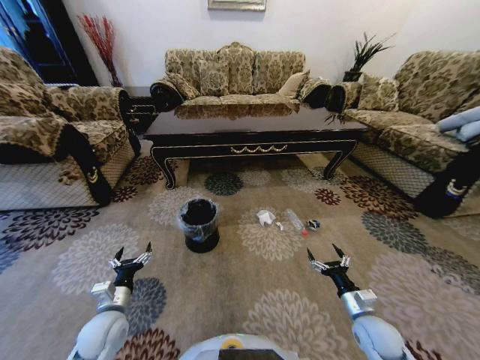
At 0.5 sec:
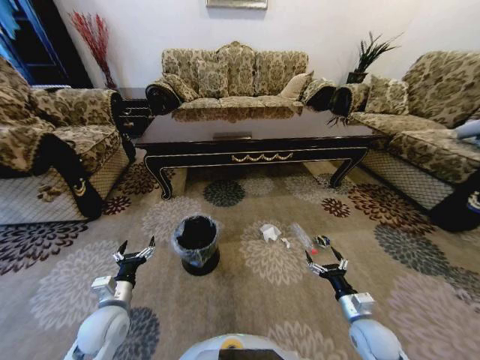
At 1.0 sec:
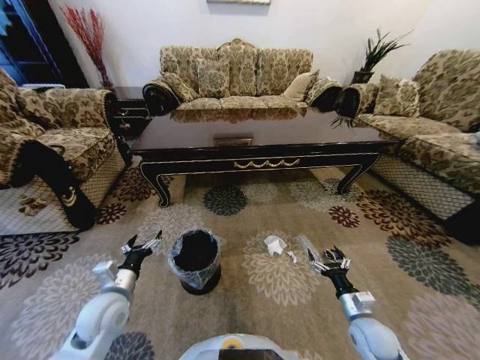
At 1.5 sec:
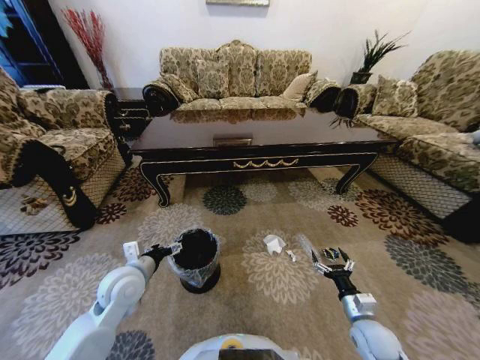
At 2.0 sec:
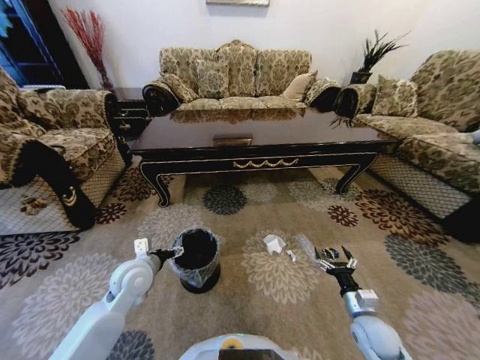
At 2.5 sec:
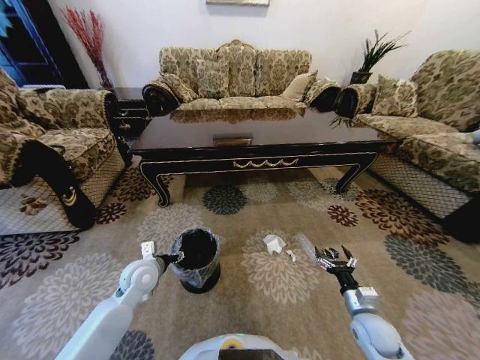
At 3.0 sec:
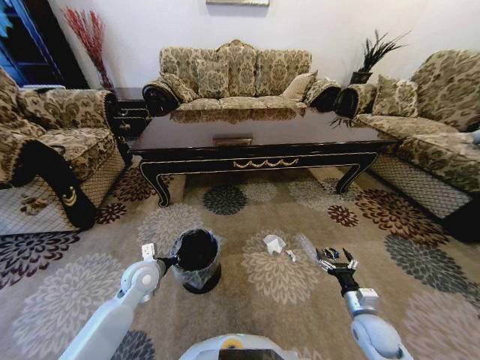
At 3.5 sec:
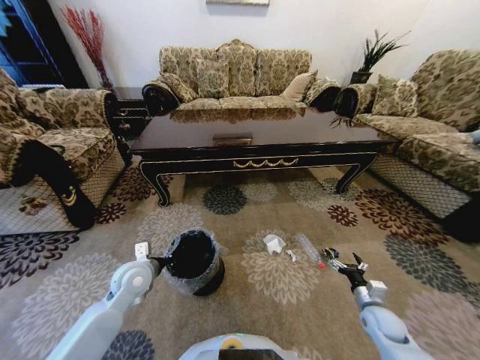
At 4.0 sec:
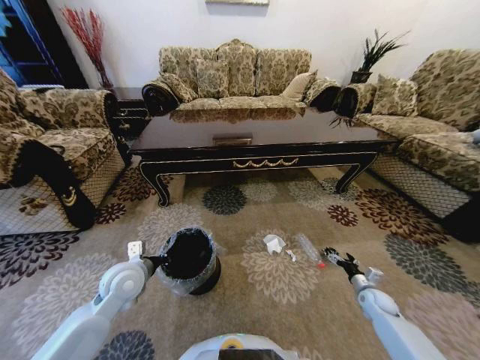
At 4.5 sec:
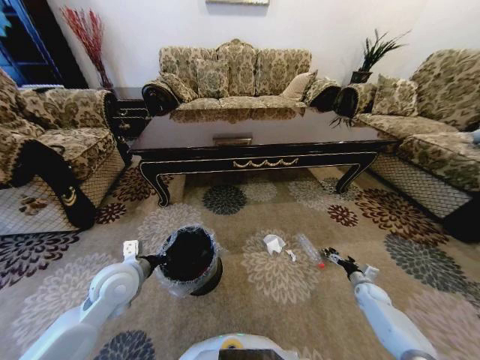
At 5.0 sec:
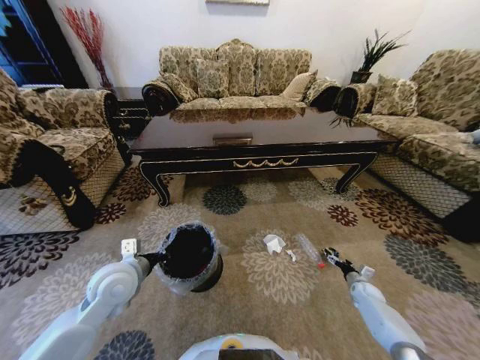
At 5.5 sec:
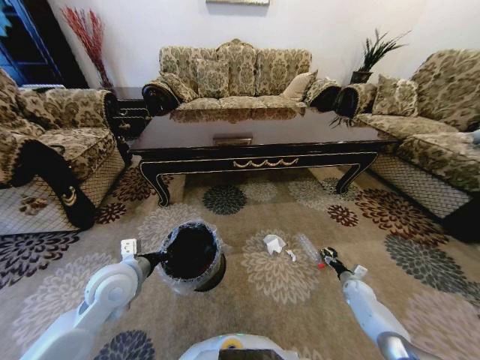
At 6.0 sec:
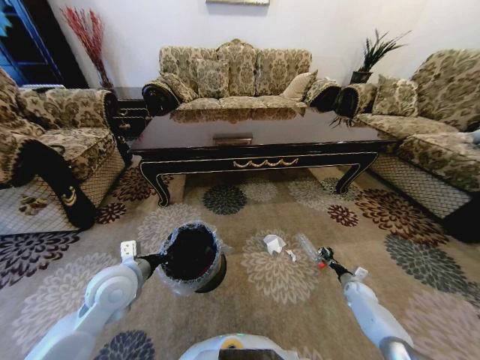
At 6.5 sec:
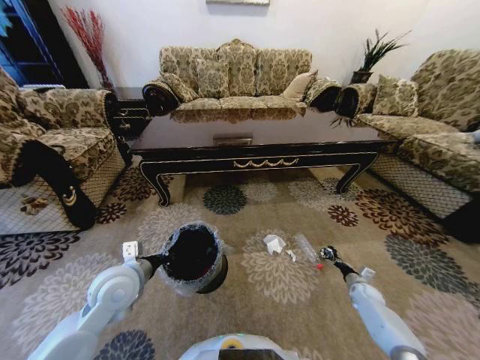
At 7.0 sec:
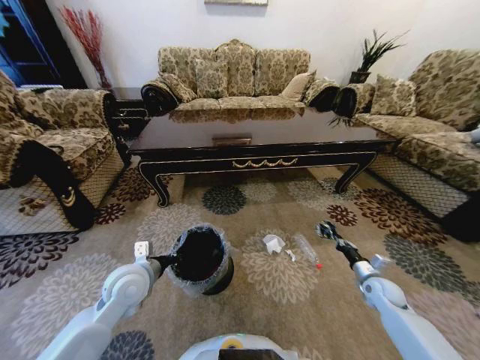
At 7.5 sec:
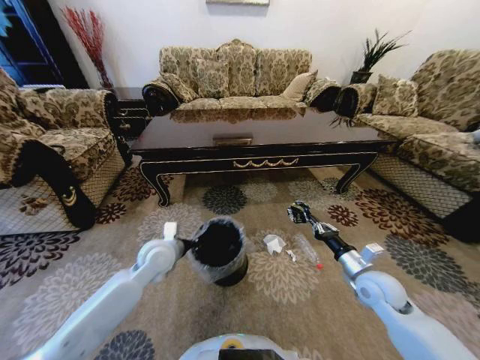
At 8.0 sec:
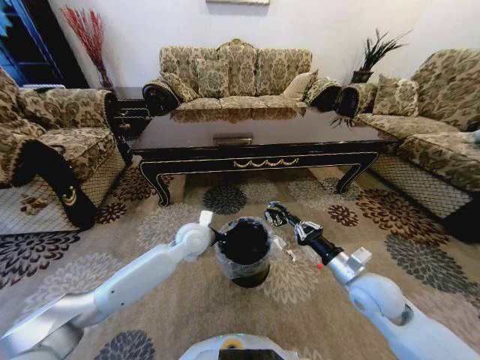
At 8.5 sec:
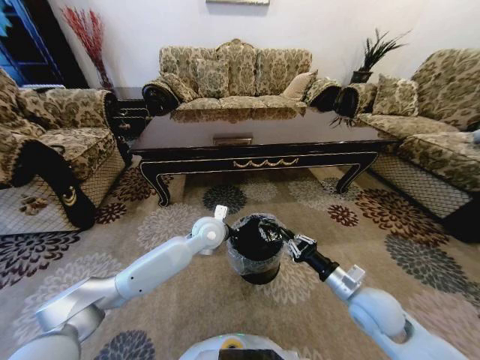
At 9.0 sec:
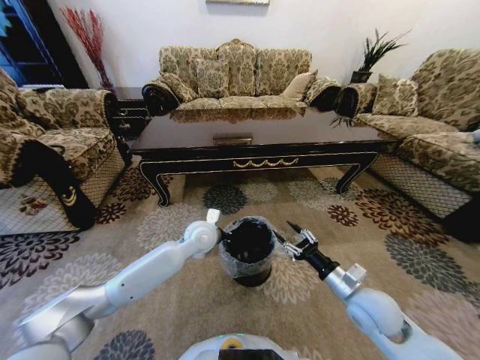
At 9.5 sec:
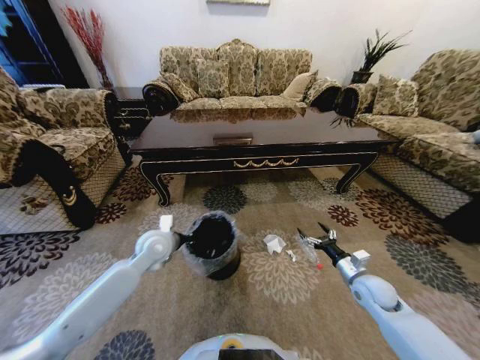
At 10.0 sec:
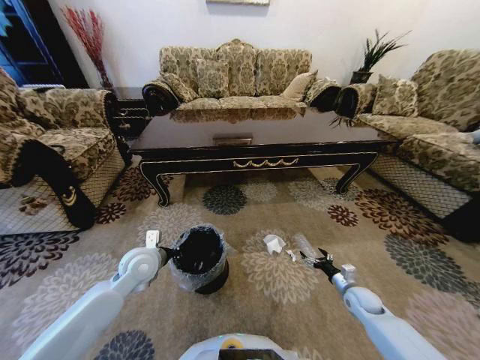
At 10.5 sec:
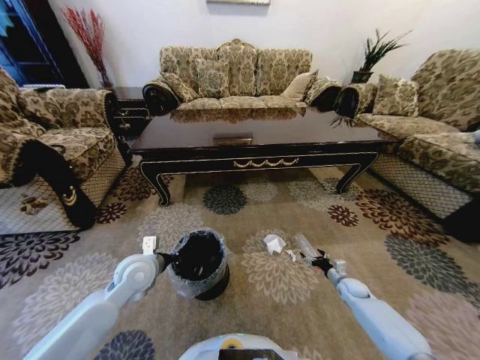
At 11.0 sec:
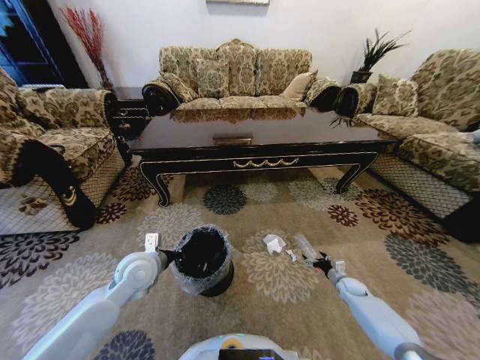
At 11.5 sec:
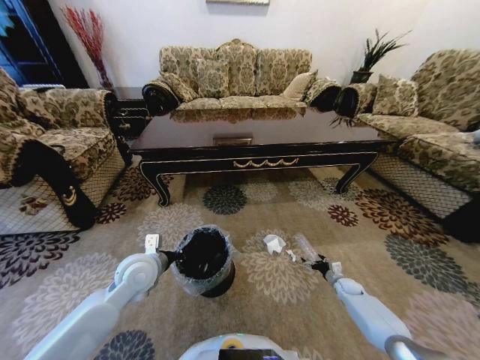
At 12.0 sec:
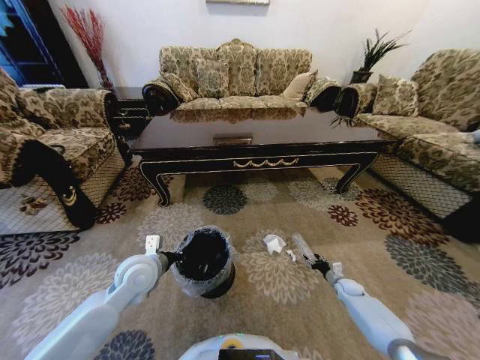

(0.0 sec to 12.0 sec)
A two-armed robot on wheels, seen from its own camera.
Task of the whole recording: Move to the front of the table and pick up the trash from the floor, then place it into the trash bin.
0.0 sec - 2.0 sec: The left gripper heads forward, upward and to the right, covering roughly 15 cm.
2.0 sec - 4.0 sec: The right gripper travels to the right, forward and downward by roughly 20 cm. Meanwhile the left gripper closes its fingers.
4.0 sec - 6.0 sec: The right gripper shifts approximately 5 cm downward, and closes its fingers.
6.0 sec - 8.0 sec: The left gripper is displaced to the right and forward by roughly 20 cm, while the right gripper shifts approximately 35 cm upward and to the left.
8.0 sec - 10.0 sec: The left gripper travels to the left and backward by roughly 15 cm. Meanwhile the right gripper travels downward and to the right by about 25 cm, and opens its fingers.
10.0 sec - 12.0 sec: The right gripper shifts roughly 10 cm downward and forward, and closes.

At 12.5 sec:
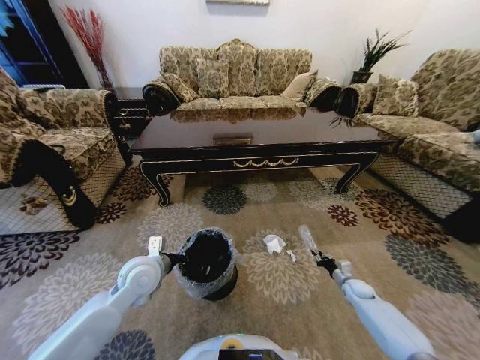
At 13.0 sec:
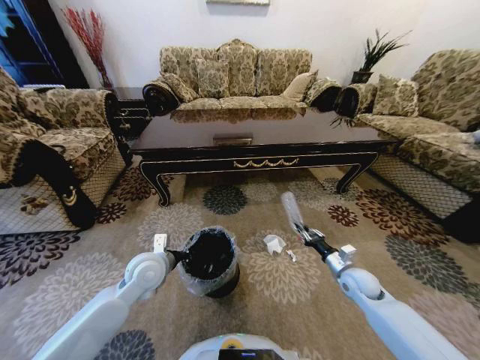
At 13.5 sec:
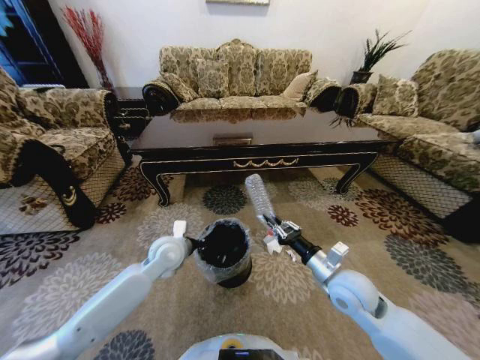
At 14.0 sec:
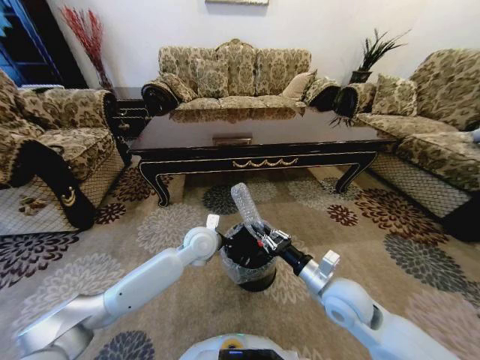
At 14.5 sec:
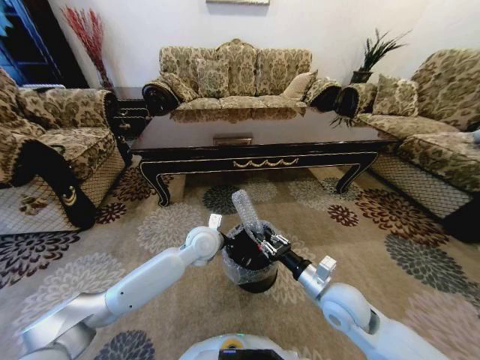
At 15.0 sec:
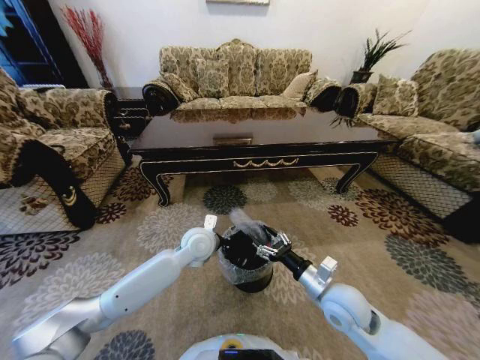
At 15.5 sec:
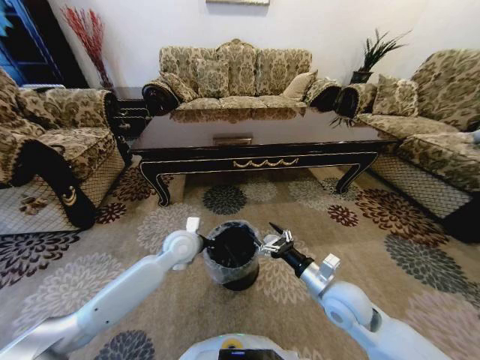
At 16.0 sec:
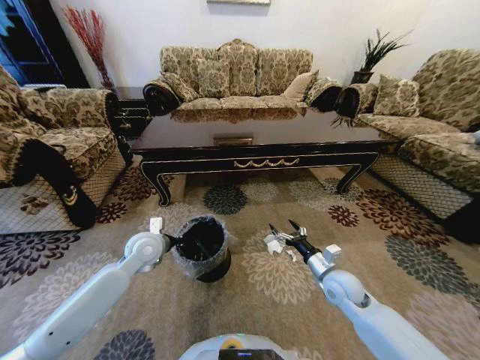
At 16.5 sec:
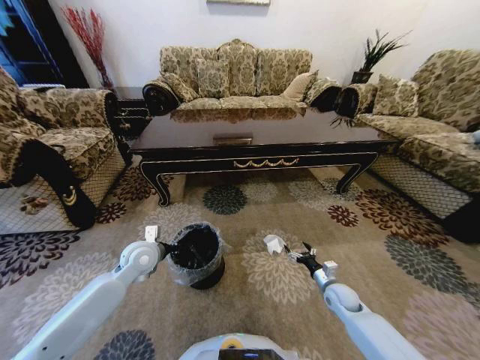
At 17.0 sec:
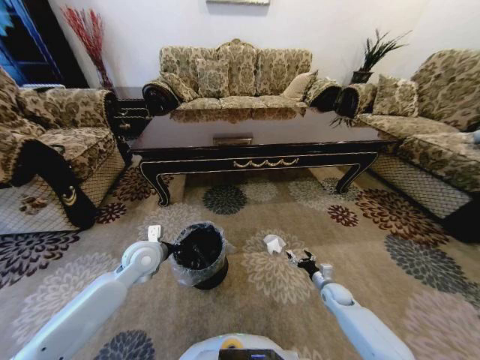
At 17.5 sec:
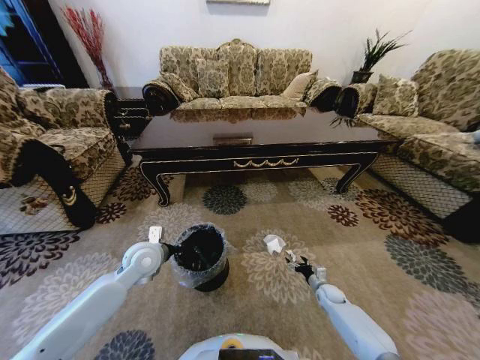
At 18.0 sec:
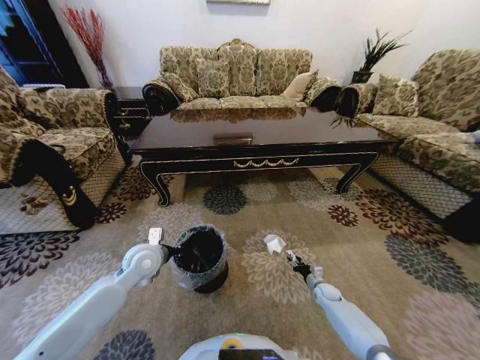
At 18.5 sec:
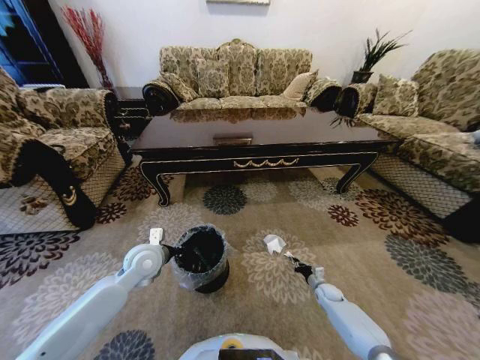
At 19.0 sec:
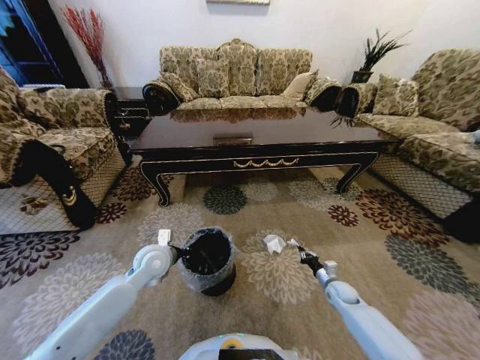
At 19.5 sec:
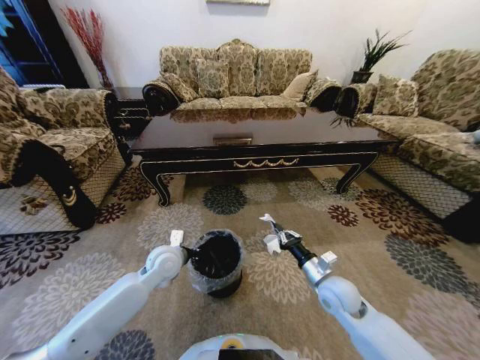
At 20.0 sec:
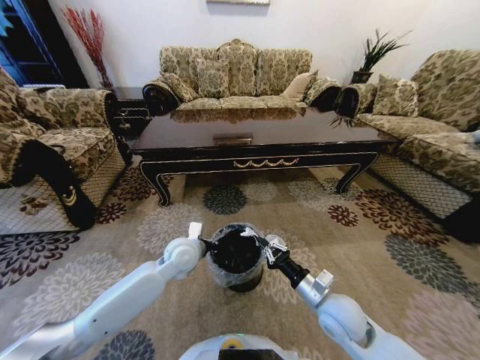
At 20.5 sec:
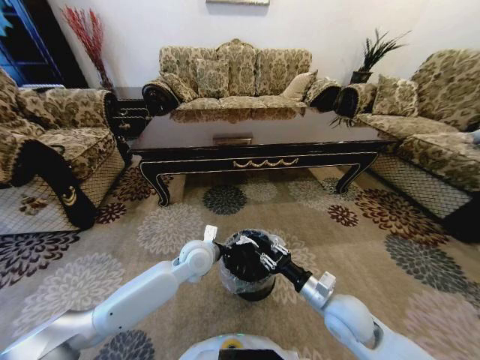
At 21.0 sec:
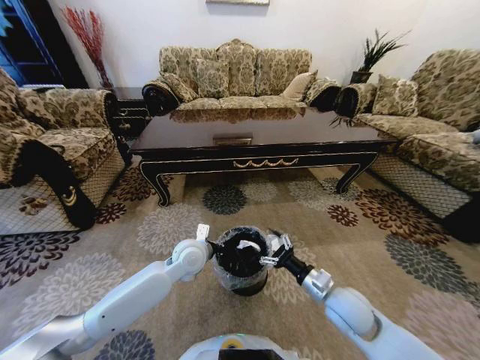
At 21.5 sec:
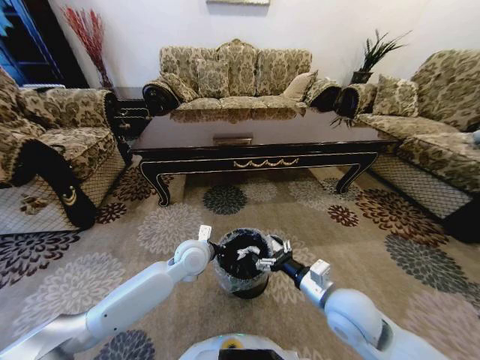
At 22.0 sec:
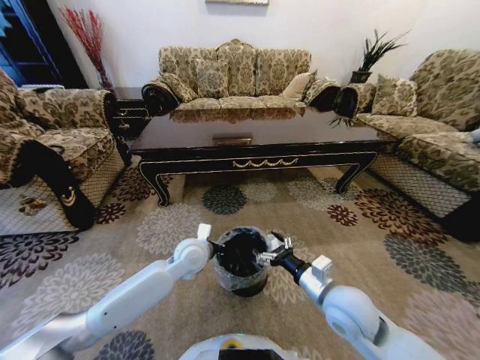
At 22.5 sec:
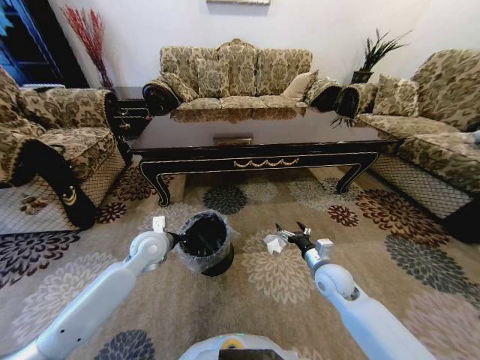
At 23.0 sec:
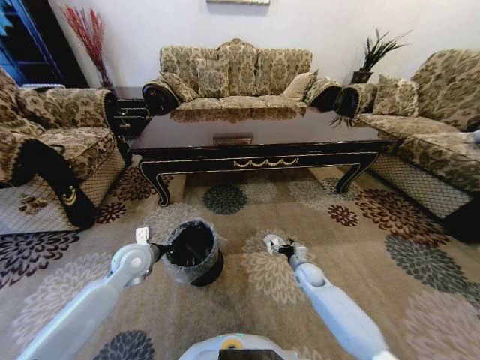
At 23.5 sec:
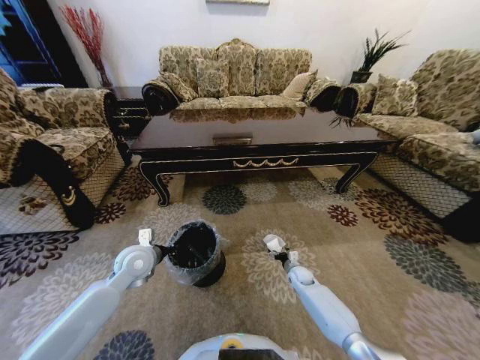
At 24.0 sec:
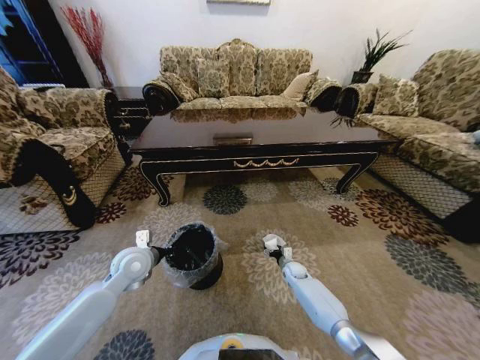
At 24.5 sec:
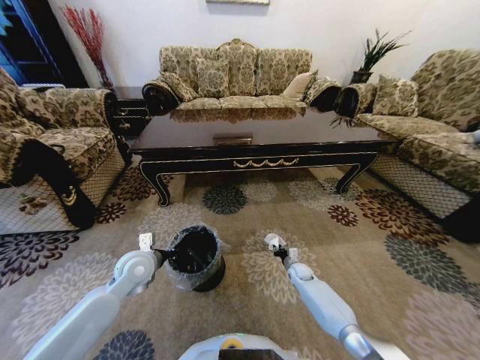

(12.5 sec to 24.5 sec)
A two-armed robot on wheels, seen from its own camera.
Task of the whole recording: Move to the front of the table and pick up the trash from the floor, then place it into the trash bin.
12.5 sec - 14.5 sec: The left gripper heads to the right and forward, covering some 15 cm; the right gripper shifts approximately 35 cm upward, to the left and backward.
14.5 sec - 16.5 sec: The left gripper heads to the left, covering some 20 cm, while the right gripper shifts roughly 20 cm downward and to the right, and opens its fingers.
16.5 sec - 18.5 sec: The right gripper is displaced downward by about 15 cm, and closes its fingers.
18.5 sec - 20.5 sec: The right gripper heads upward, to the left and backward, covering about 35 cm; the left gripper moves to the right, about 15 cm.
20.5 sec - 22.5 sec: The right gripper moves forward, about 10 cm, and opens its fingers. Meanwhile the left gripper travels to the left by roughly 15 cm.
22.5 sec - 24.5 sec: The left gripper shifts by approximately 5 cm. Meanwhile the right gripper travels downward and forward by approximately 25 cm, and closes.

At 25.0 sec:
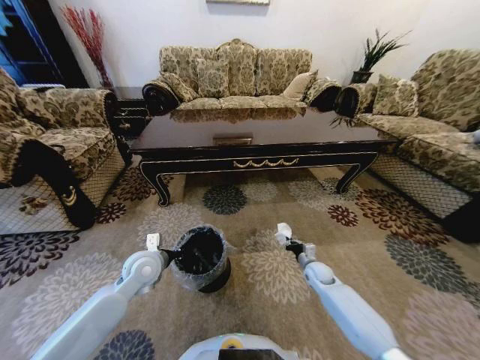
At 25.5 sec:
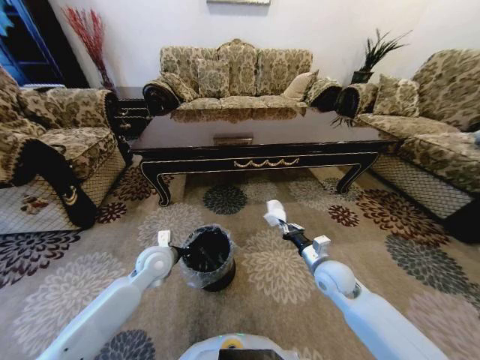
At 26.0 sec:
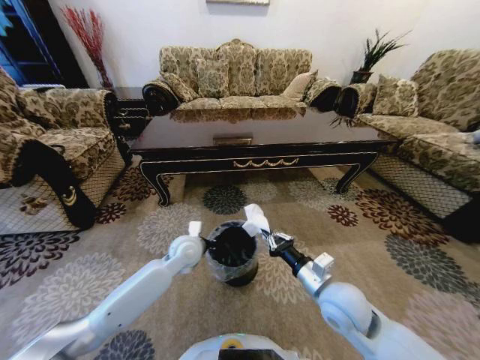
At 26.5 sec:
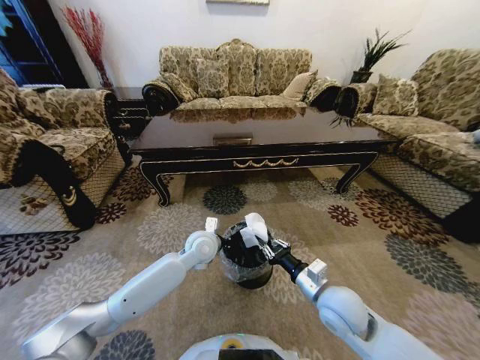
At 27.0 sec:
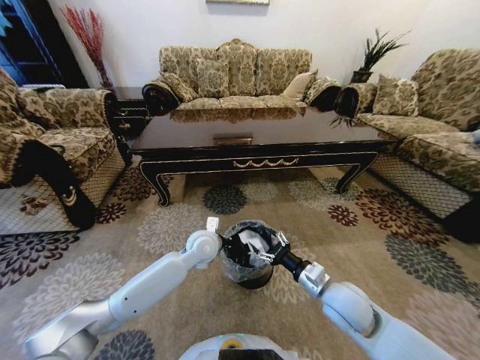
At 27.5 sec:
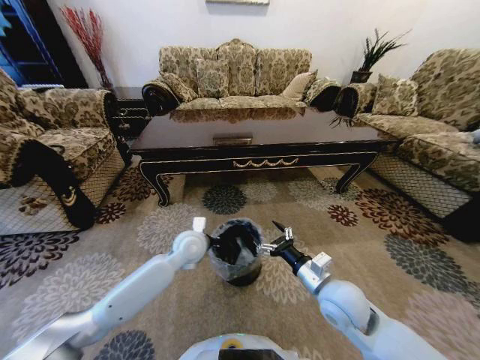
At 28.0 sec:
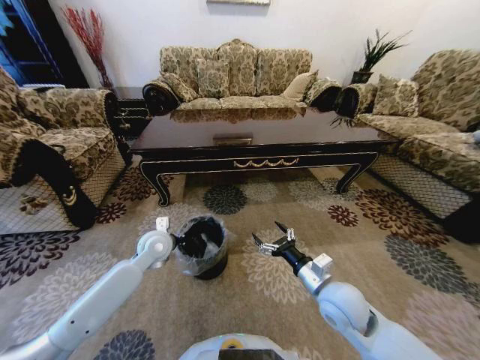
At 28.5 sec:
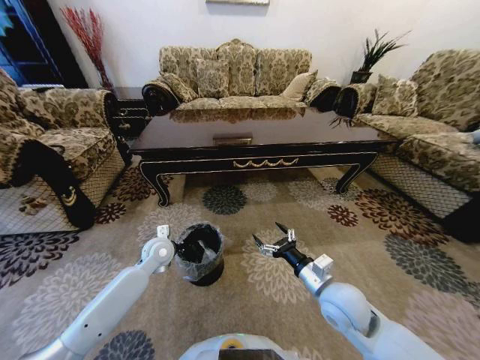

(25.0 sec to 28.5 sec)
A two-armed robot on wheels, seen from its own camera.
Task of the whole recording: Move to the front of the table and pick up the trash from the floor, then place it into the trash bin.
25.0 sec - 27.0 sec: The left gripper moves to the right, some 15 cm. The right gripper travels upward, backward and to the left by approximately 25 cm, and opens its fingers.
27.0 sec - 28.5 sec: The left gripper travels to the left by approximately 15 cm.
